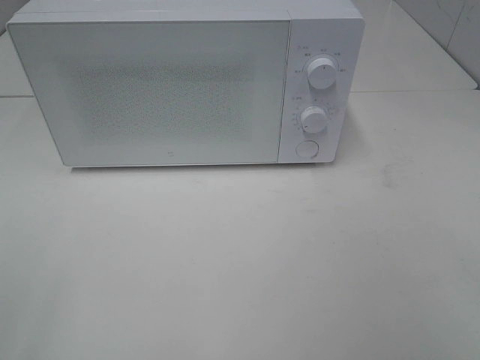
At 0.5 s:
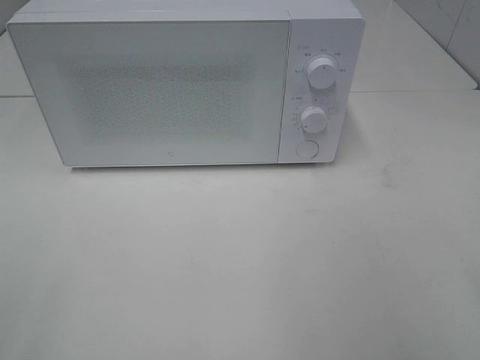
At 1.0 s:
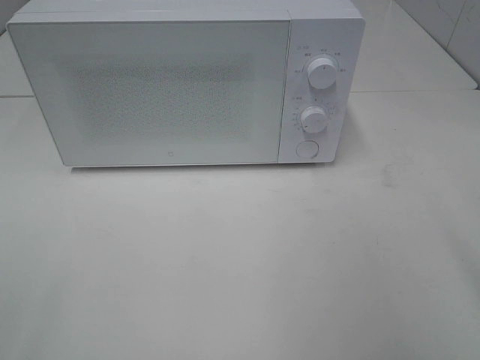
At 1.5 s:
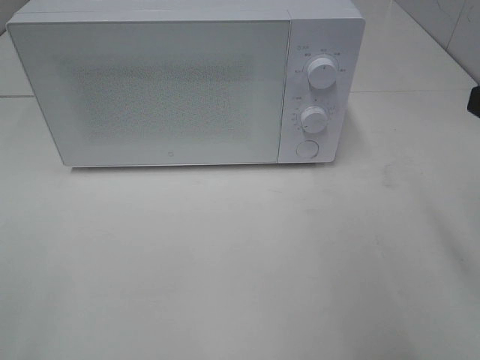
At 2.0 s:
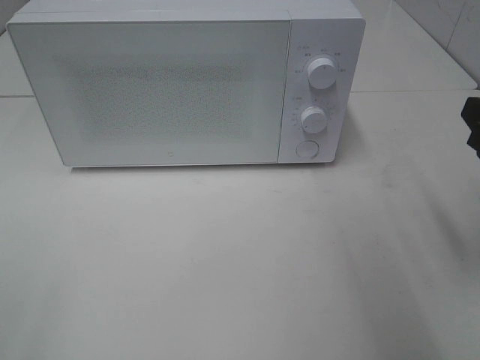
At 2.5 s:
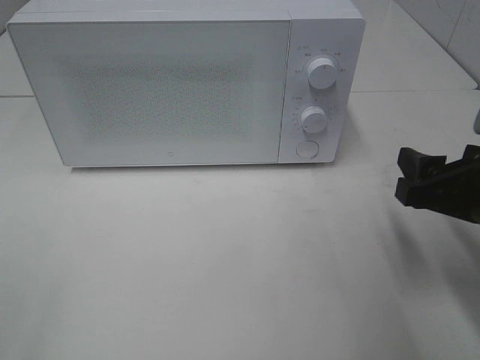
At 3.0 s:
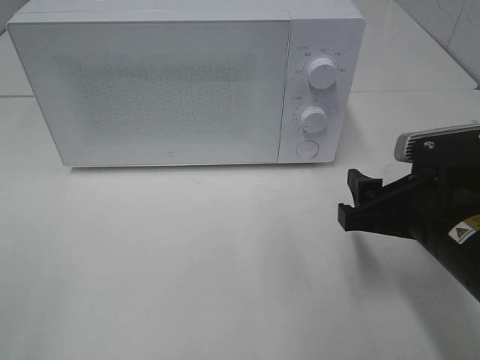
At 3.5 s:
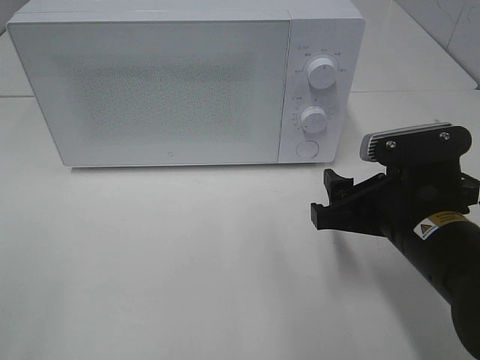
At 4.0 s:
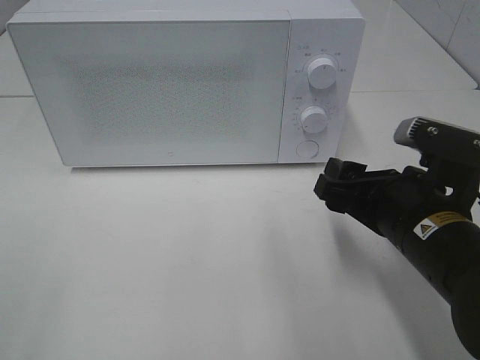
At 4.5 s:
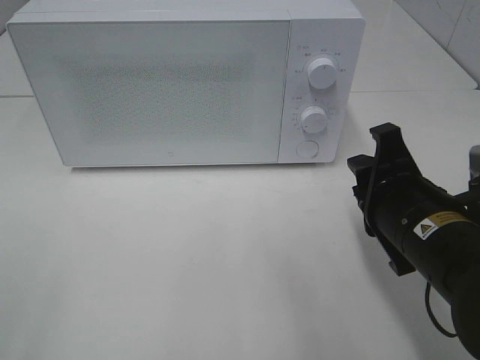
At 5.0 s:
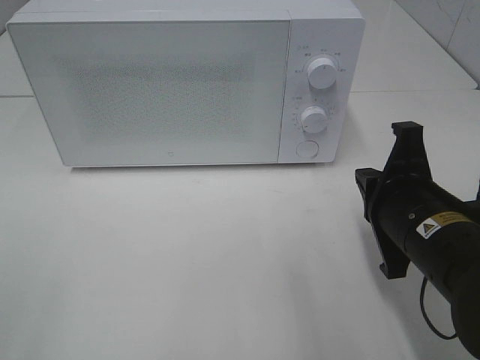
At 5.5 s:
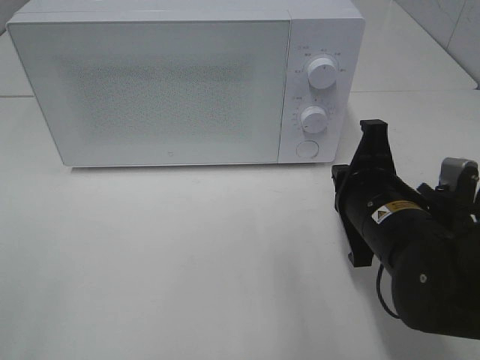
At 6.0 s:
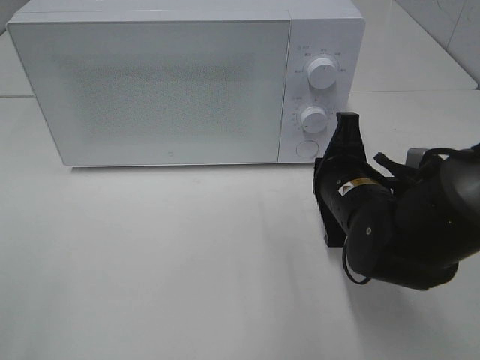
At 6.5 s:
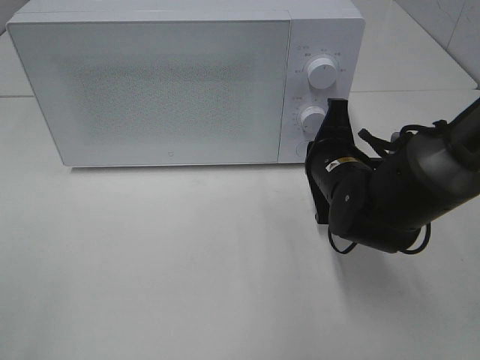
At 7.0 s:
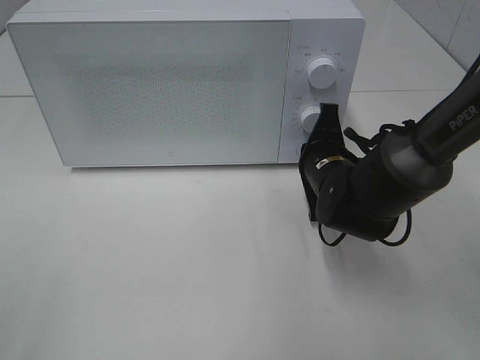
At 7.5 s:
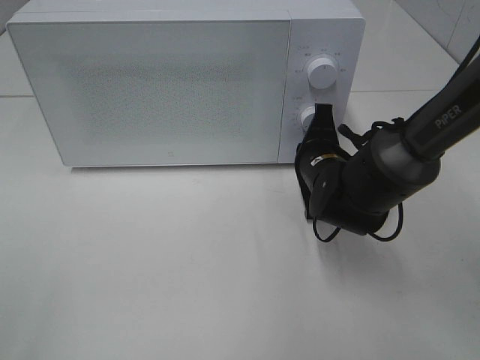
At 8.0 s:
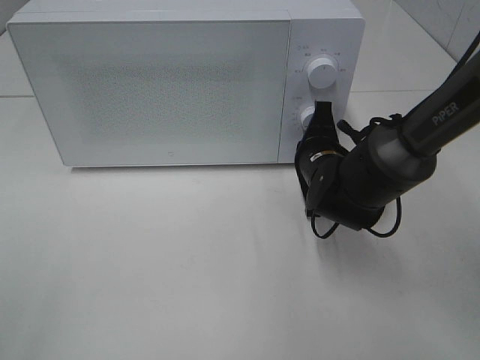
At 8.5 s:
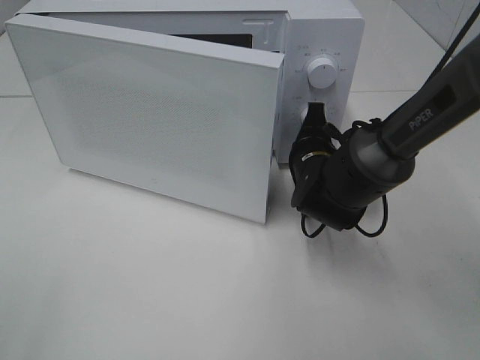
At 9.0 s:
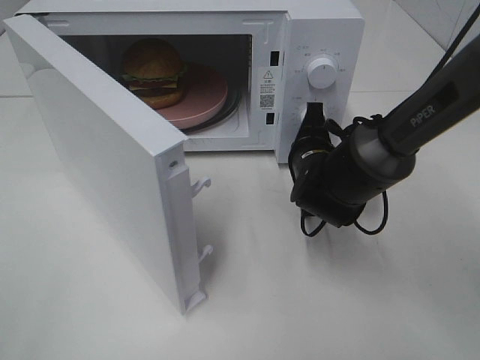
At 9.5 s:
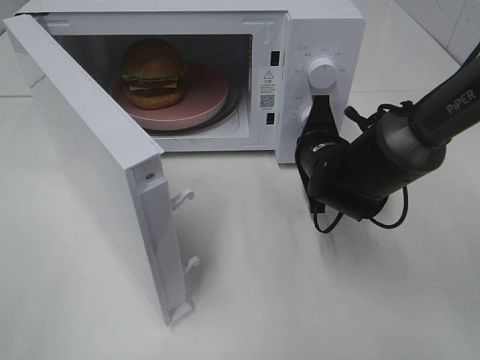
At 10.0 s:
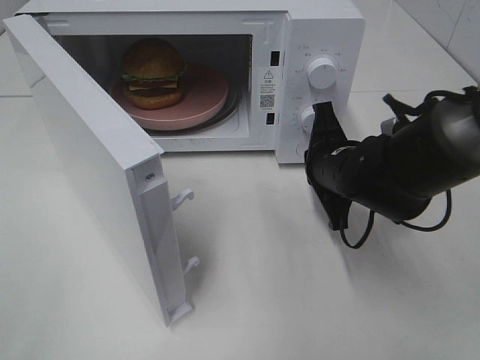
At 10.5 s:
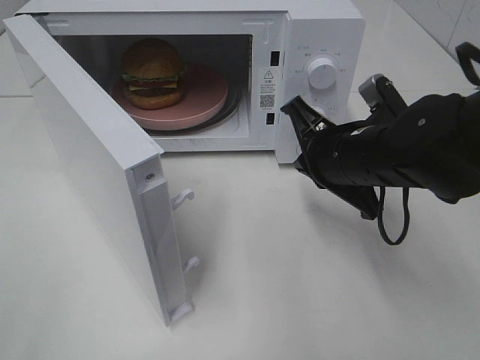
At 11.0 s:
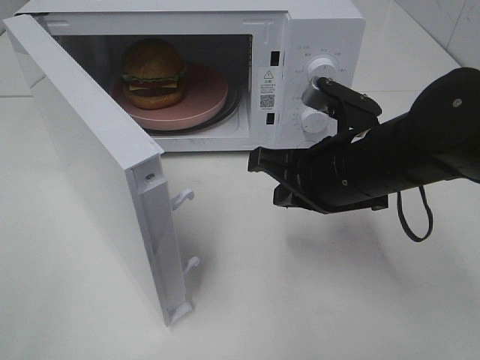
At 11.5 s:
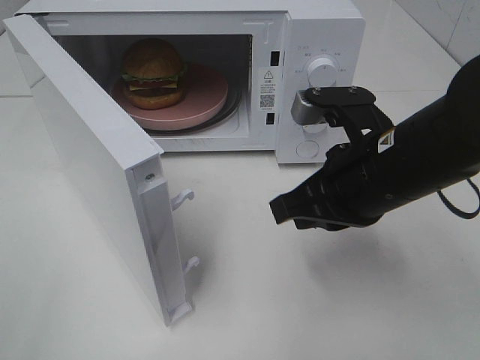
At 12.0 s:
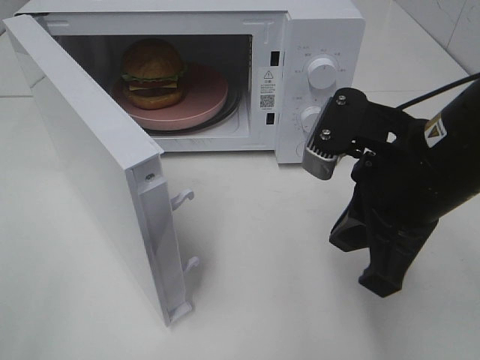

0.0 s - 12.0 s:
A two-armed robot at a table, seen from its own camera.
Task of the whole recording: Heat the burger.
Step, 0.0 s - 9.5 s: Right hand: press the switch.
0.0 s - 2.0 s: The right gripper travels forward by about 20 cm.
2.0 s - 4.0 s: The right gripper goes about 15 cm to the left and downward.
4.0 s - 6.0 s: The right gripper is displaced forward by about 5 cm, and closes.
6.0 s - 8.0 s: The right gripper is displaced forward by some 10 cm.
10.0 s - 12.0 s: The right gripper shifts about 15 cm backward and upward.

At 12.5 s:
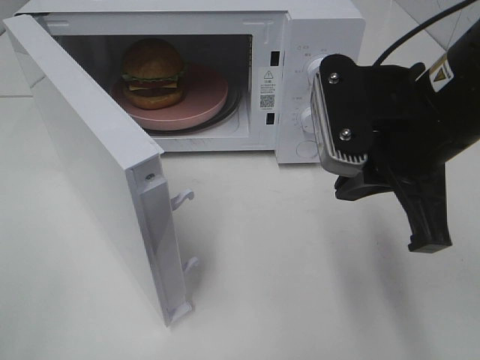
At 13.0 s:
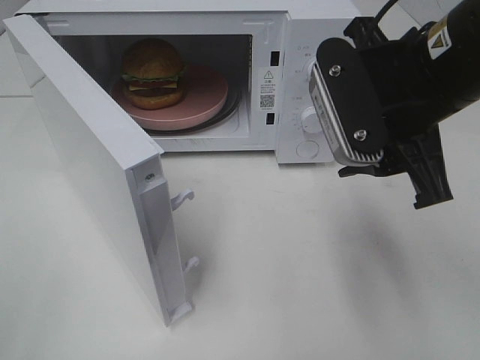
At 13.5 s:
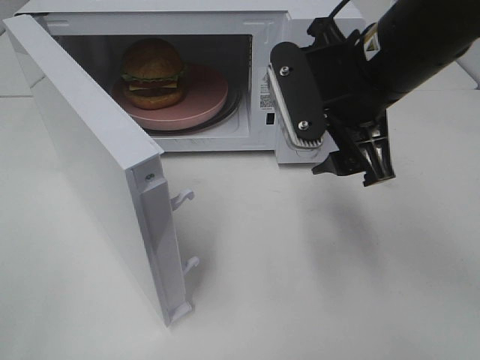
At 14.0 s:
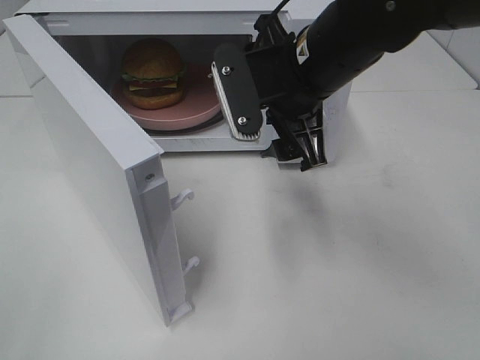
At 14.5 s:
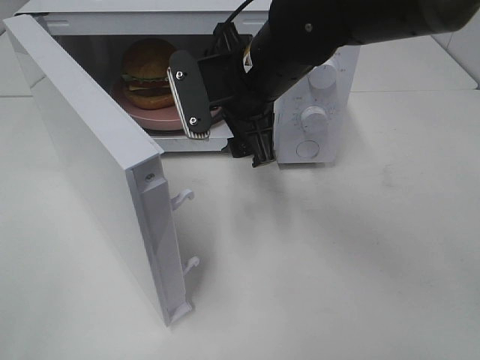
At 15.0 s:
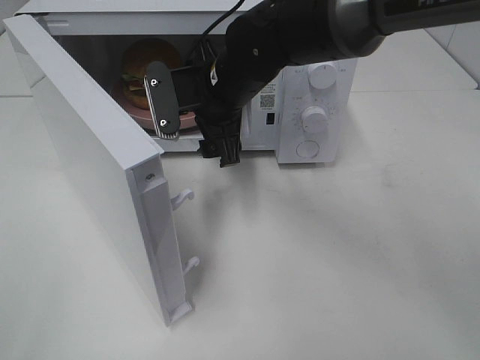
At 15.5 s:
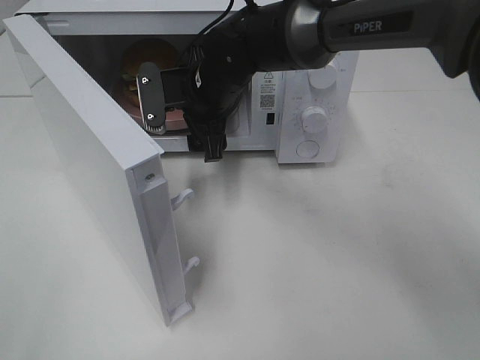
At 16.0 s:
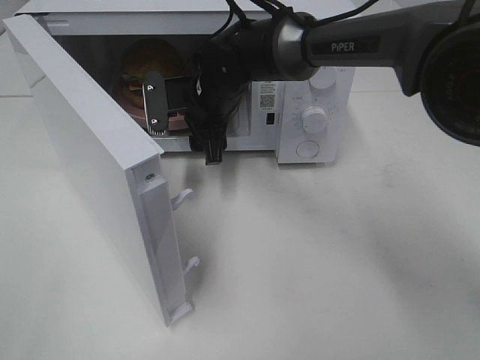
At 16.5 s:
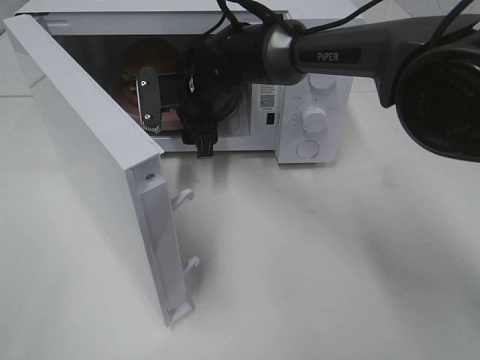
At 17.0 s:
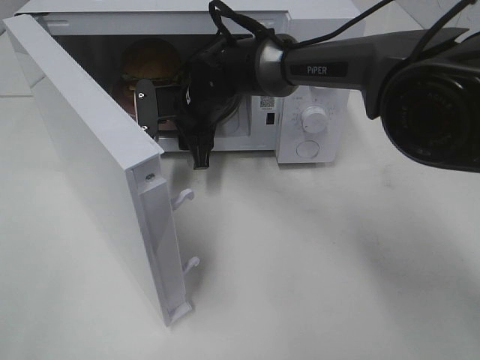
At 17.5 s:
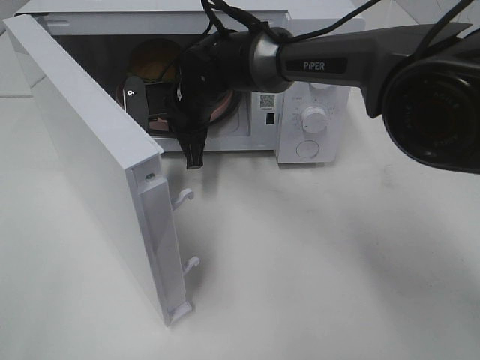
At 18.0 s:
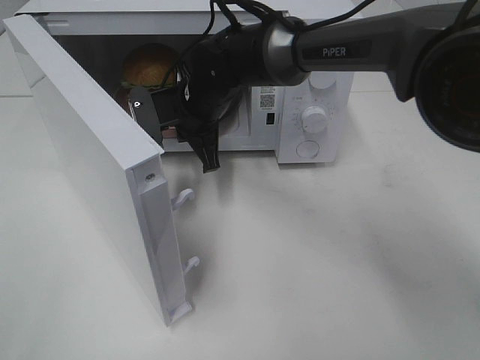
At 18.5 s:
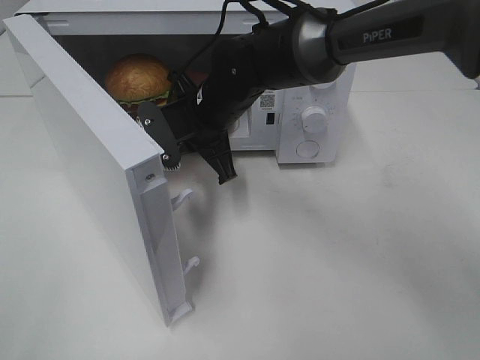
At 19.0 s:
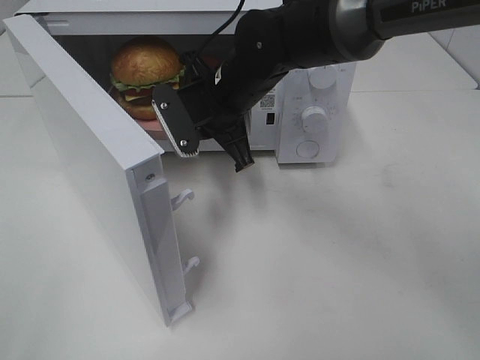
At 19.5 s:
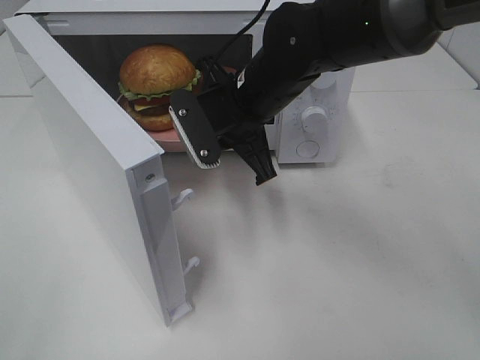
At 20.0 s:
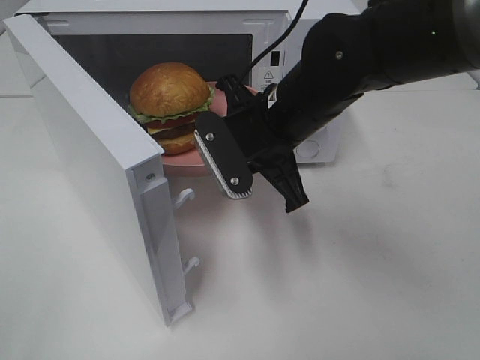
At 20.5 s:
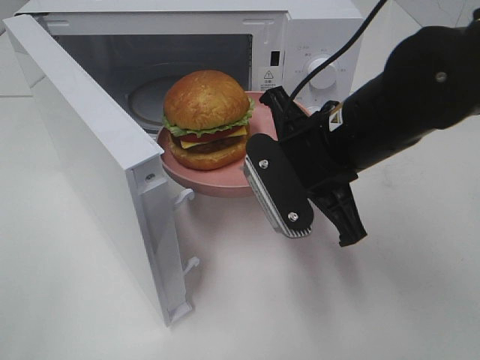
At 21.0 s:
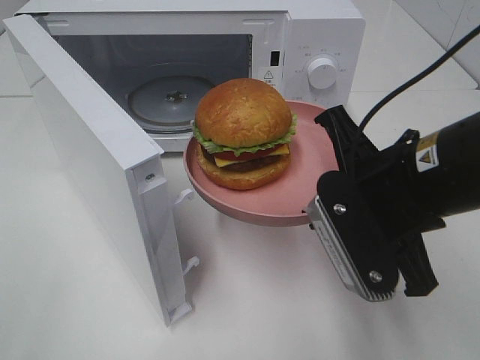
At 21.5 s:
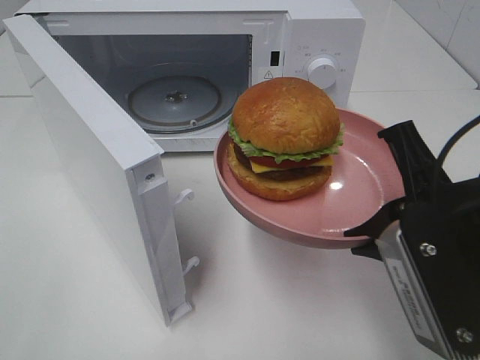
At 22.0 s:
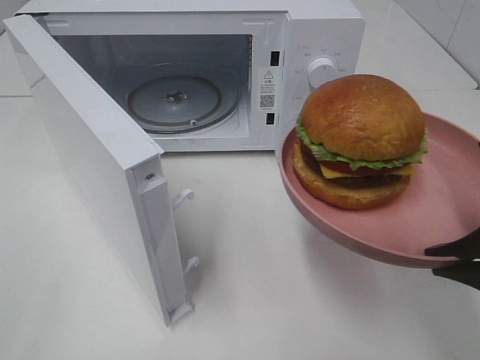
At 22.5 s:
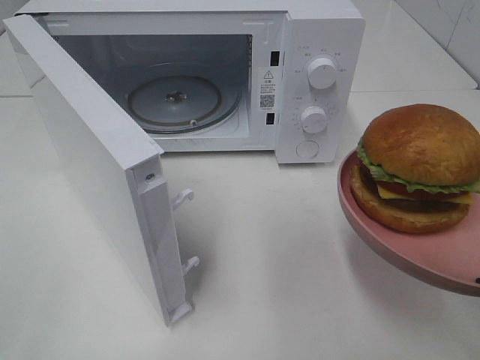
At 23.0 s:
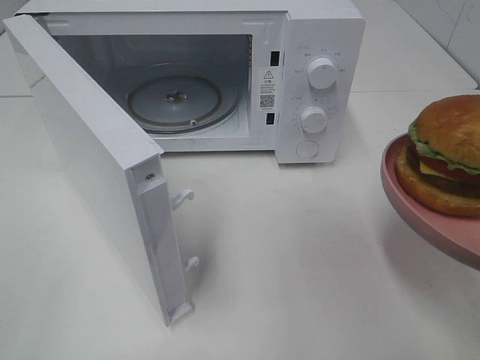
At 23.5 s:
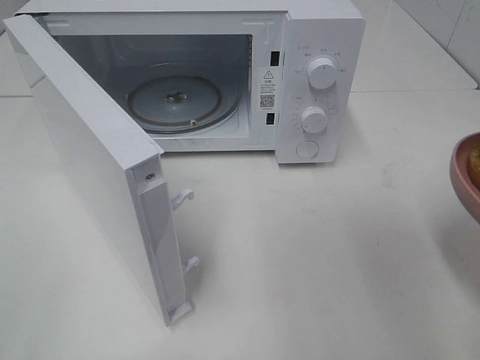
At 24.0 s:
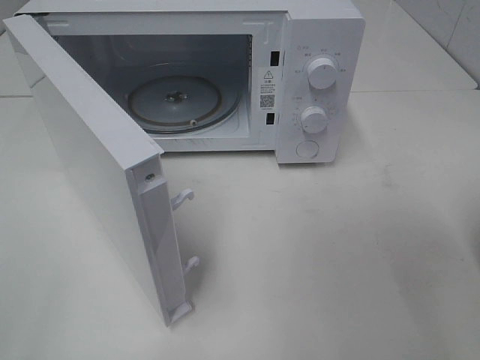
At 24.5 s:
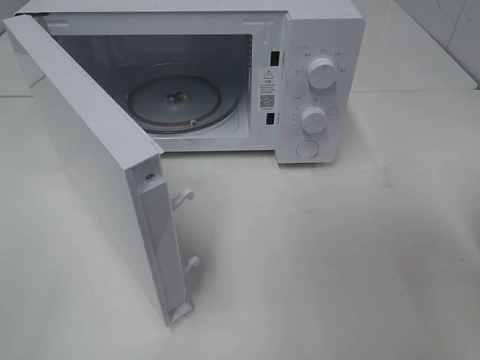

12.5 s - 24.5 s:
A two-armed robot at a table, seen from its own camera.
Task of the whole recording: Heat the burger.
Step, 12.5 s - 17.0 s: Right hand: grab the plate with the hamburger.
12.5 s - 14.5 s: The right gripper shifts approximately 15 cm forward and to the left, and opens its fingers.
14.5 s - 16.5 s: The right gripper shifts roughly 15 cm forward, downward and to the left.
16.5 s - 18.5 s: The right gripper travels backward by about 5 cm, and closes up.
18.5 s - 20.5 s: The right gripper goes roughly 20 cm backward and to the right.
20.5 s - 22.5 s: The right gripper goes some 20 cm backward and to the right.

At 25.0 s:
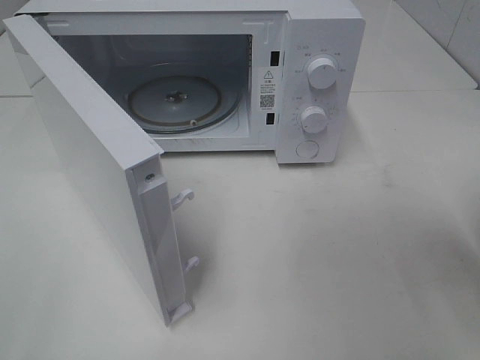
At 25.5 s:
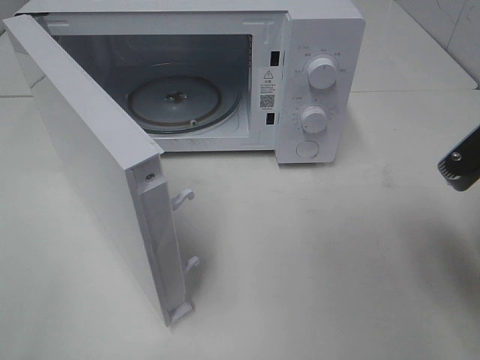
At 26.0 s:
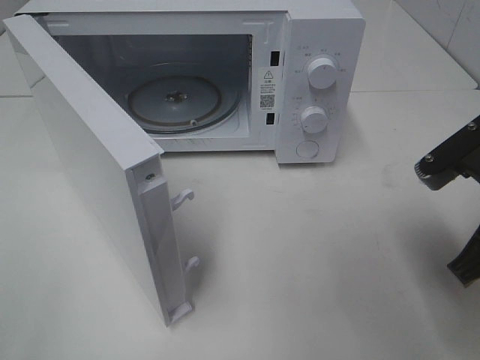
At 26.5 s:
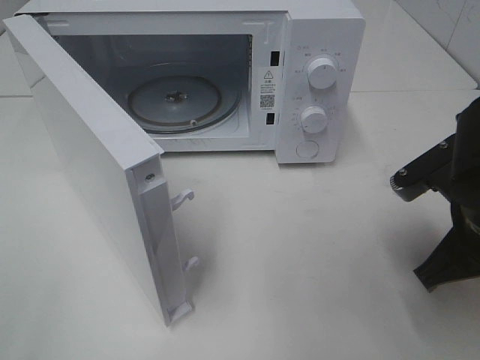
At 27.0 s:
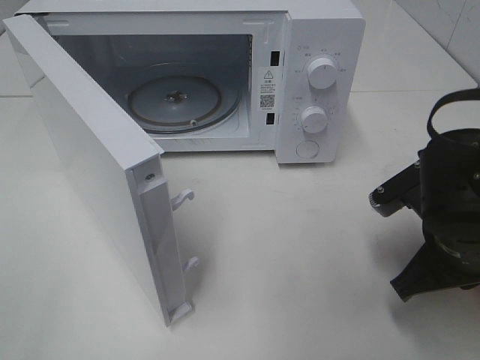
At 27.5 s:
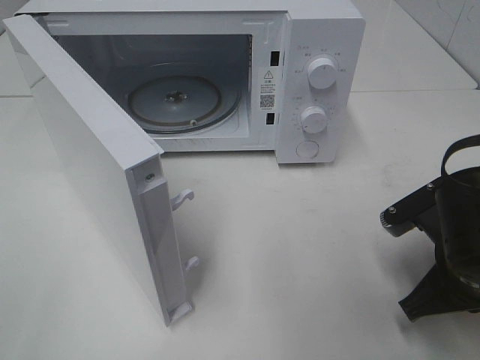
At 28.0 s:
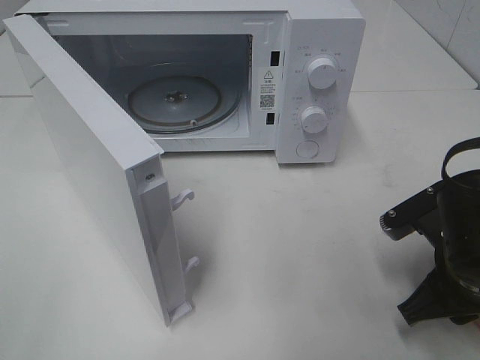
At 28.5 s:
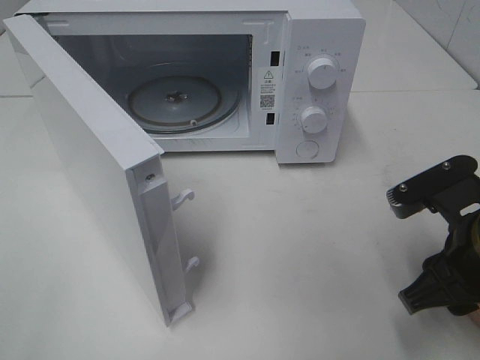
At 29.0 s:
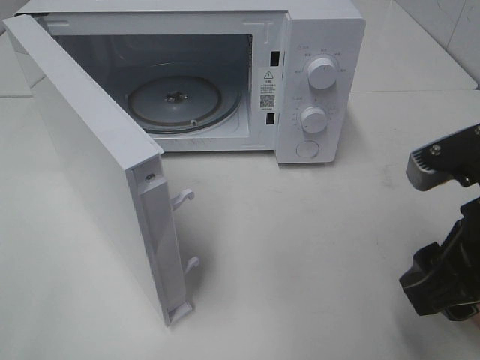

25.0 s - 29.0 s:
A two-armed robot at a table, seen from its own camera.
Task of the whole recording: Heat the burger.
Step, 25.0 s - 28.0 s: Right hand: place the plate on the table.
25.0 s - 27.0 s: The right gripper shifts about 15 cm downward, forward and to the left.
27.0 s - 29.0 s: The right gripper is displaced upward and backward by approximately 10 cm, and opens.
